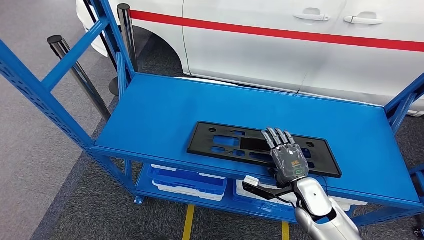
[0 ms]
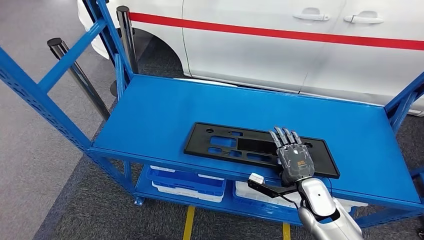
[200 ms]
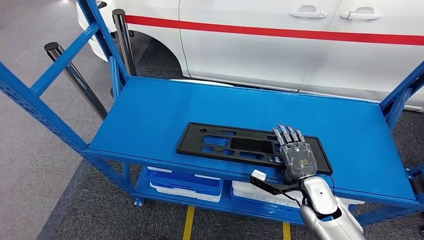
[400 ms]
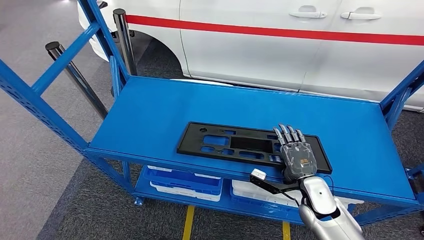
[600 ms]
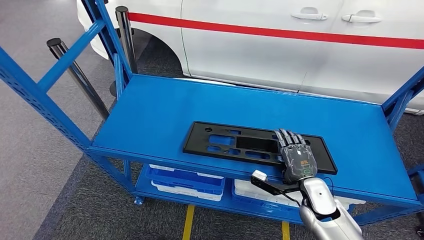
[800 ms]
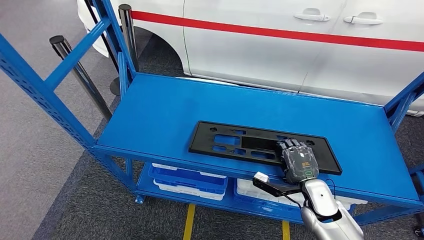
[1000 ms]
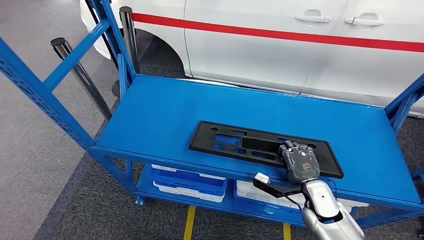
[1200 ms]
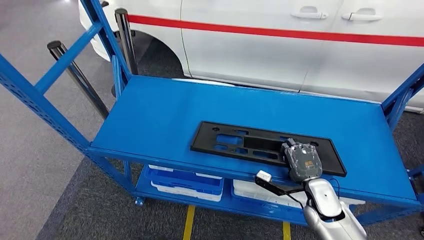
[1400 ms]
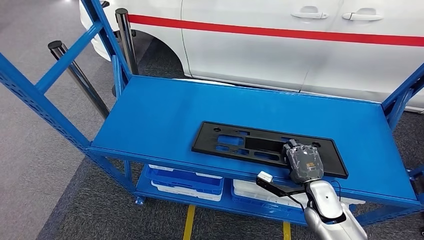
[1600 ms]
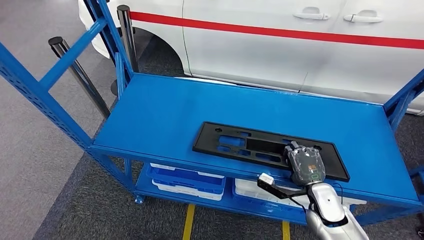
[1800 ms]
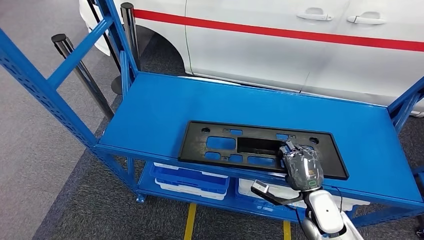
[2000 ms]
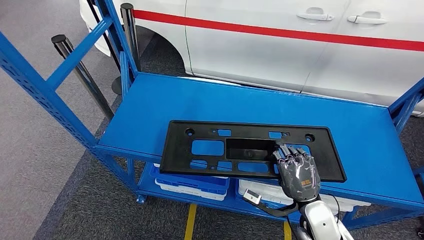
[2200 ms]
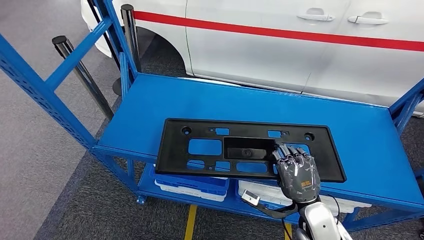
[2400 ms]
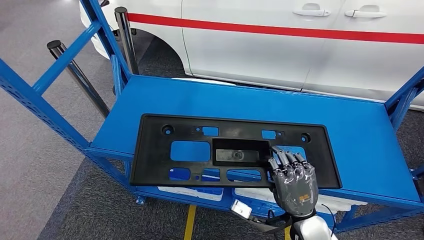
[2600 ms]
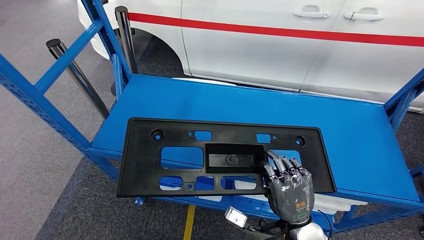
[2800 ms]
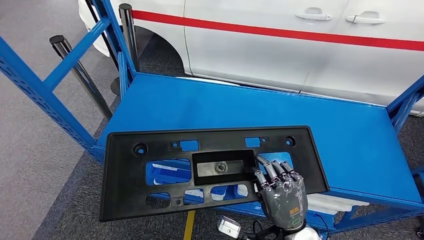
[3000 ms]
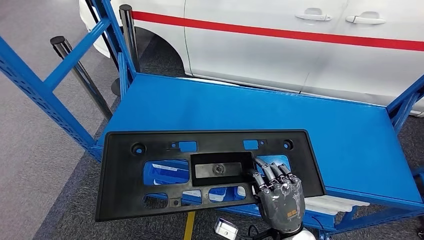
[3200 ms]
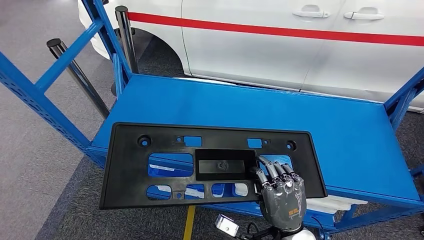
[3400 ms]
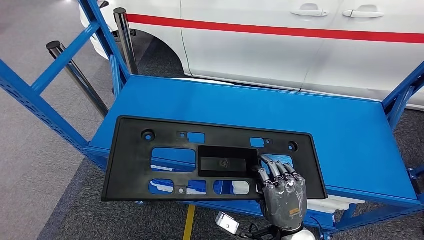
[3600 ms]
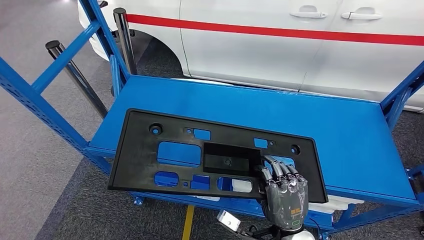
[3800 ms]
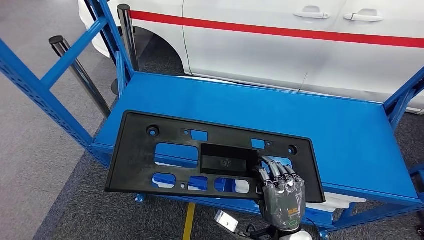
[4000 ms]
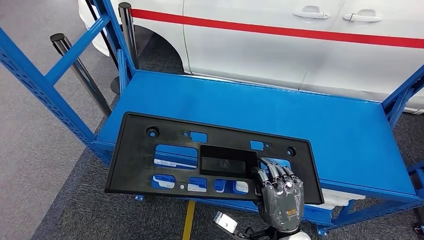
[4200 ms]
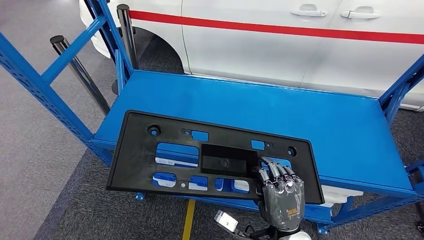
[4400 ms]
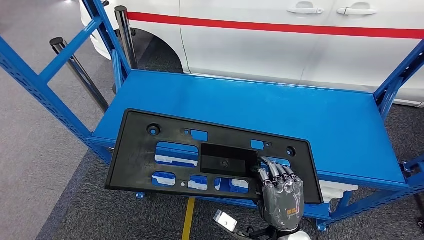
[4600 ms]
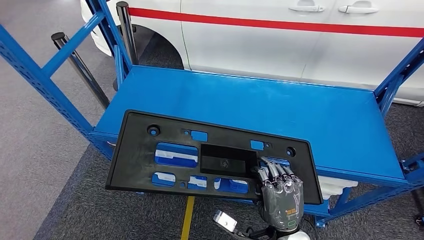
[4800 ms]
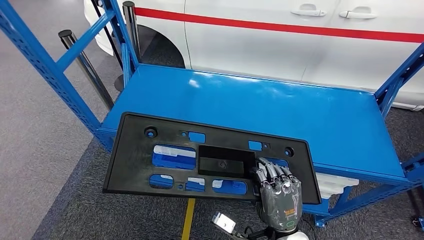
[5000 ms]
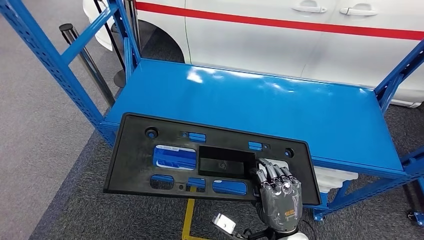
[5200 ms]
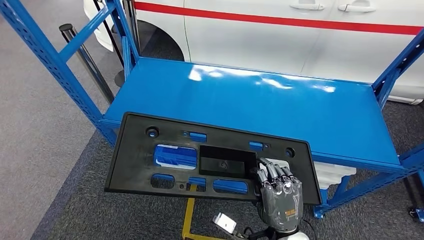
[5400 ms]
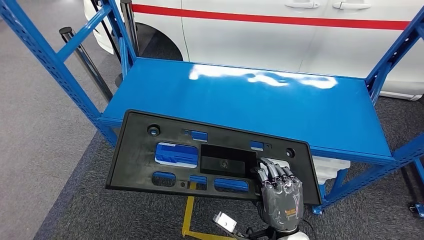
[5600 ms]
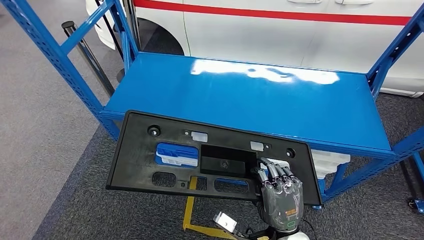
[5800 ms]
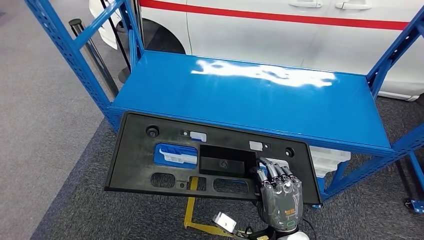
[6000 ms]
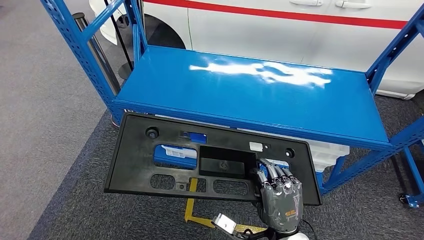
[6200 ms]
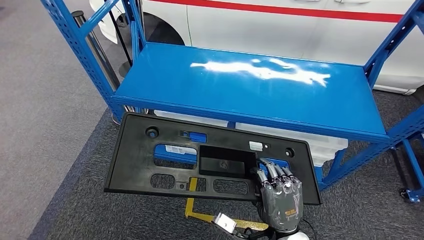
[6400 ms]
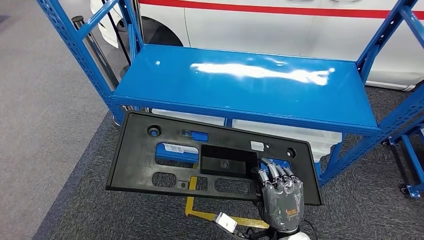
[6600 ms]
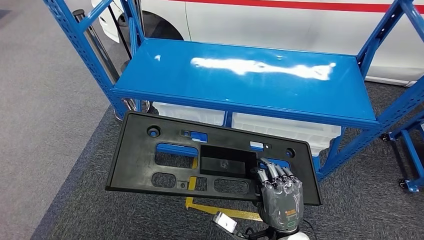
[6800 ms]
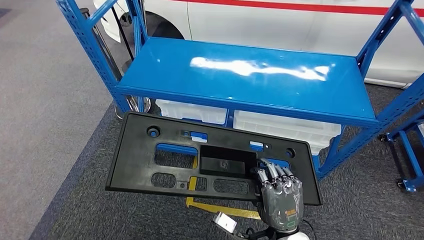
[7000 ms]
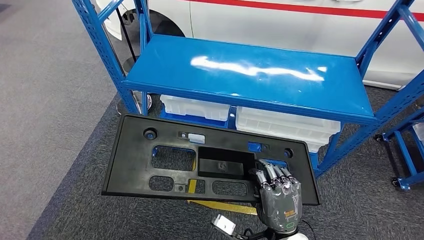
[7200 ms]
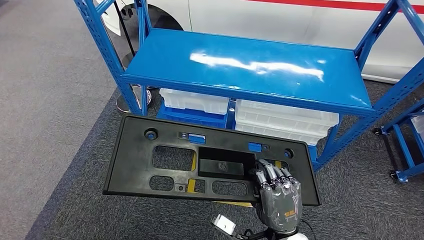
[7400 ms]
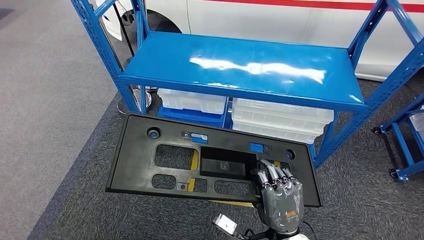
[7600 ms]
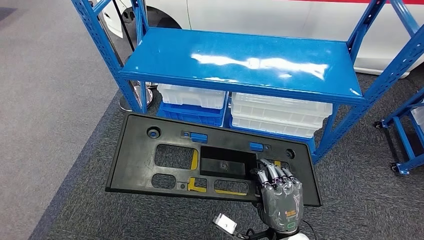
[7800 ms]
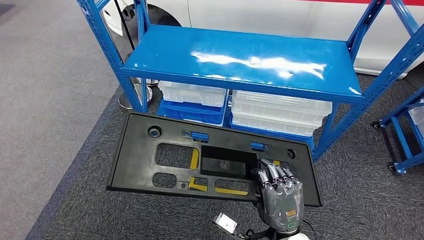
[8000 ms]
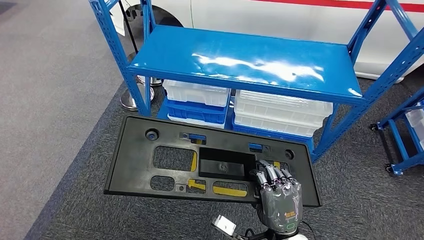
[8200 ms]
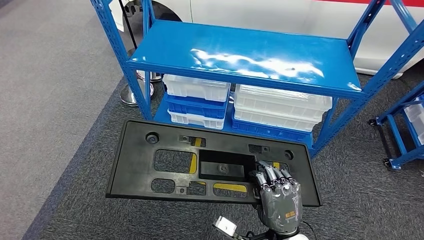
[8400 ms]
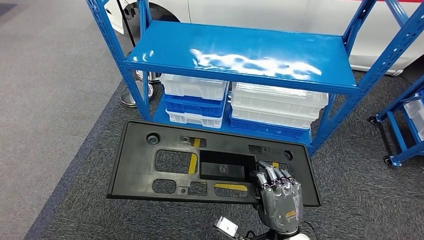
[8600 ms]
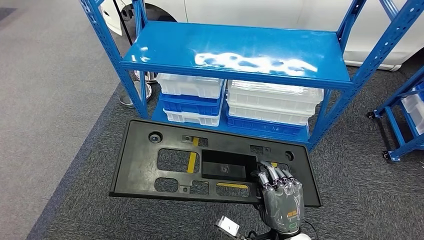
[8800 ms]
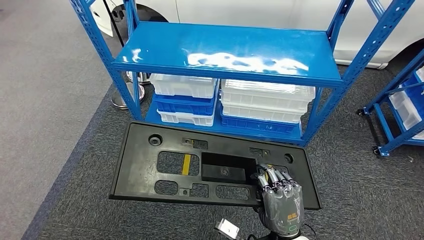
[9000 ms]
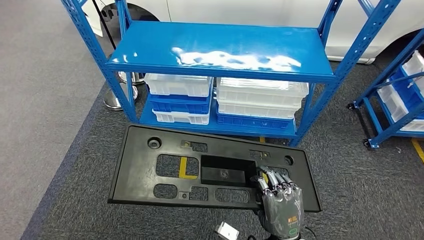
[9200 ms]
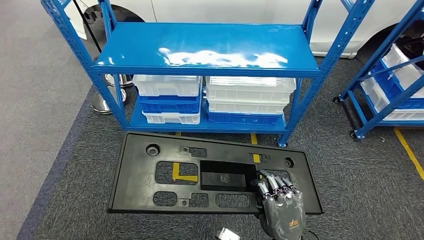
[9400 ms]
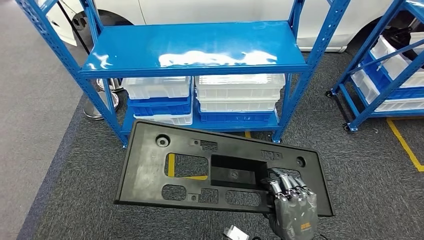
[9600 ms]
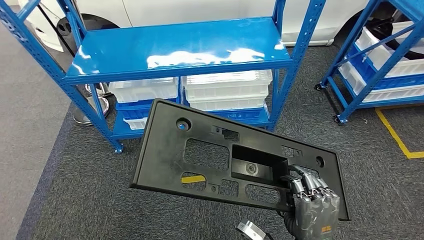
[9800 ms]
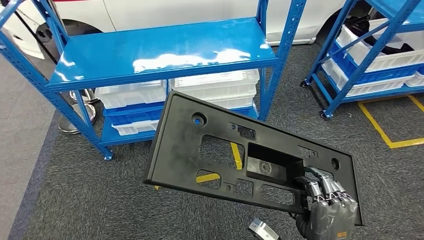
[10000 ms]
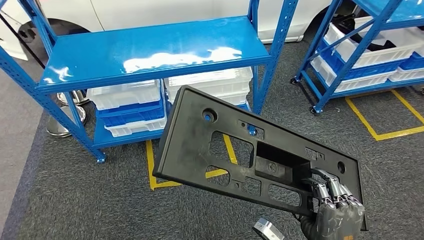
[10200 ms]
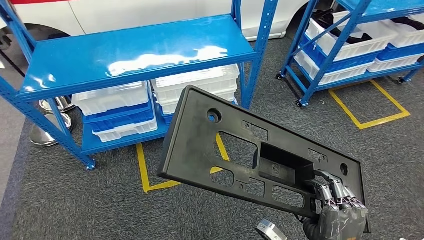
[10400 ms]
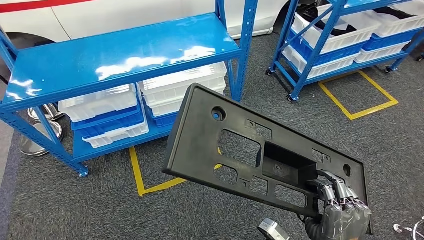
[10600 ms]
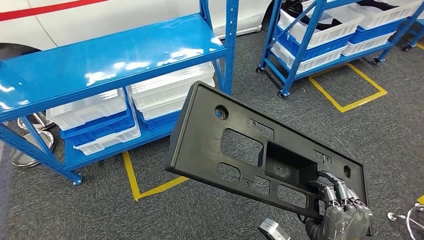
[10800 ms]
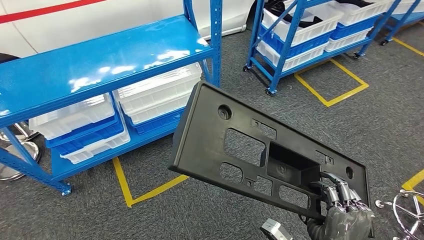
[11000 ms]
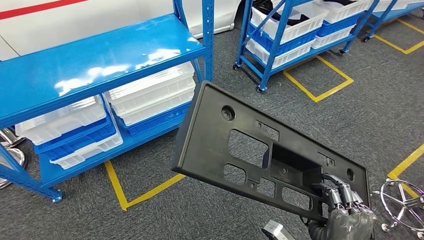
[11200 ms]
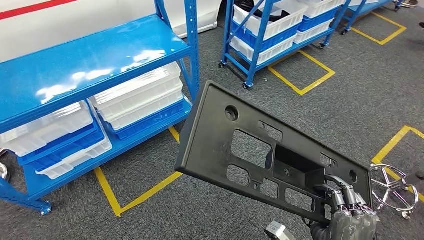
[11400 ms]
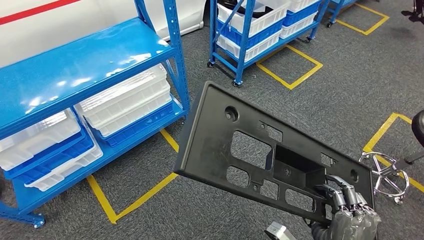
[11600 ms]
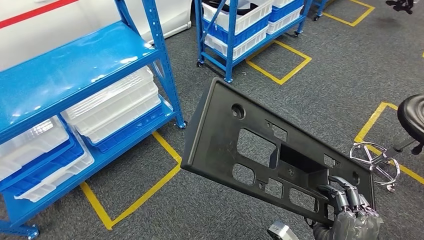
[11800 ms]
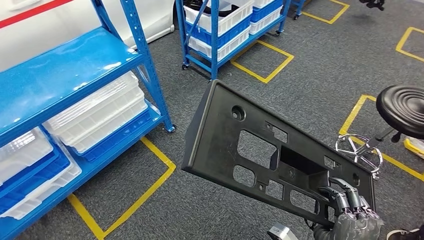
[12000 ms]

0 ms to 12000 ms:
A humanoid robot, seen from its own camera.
Step, 0 ms to 6000 ms: Pick up the large material from the shelf.
0 ms to 1600 ms: The hands stay close to where they were, moving slightly.

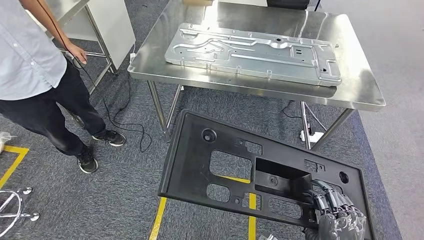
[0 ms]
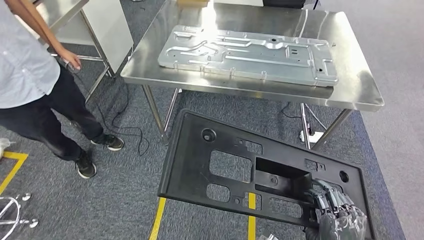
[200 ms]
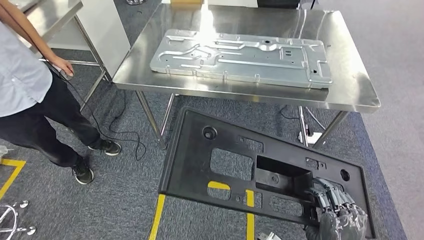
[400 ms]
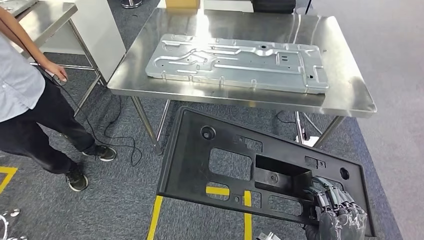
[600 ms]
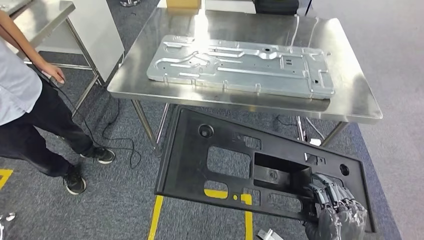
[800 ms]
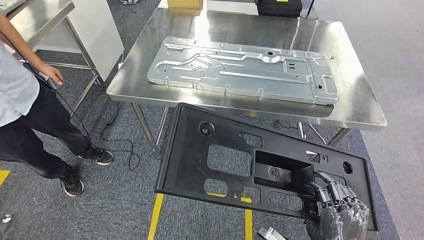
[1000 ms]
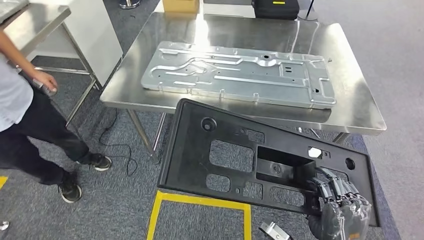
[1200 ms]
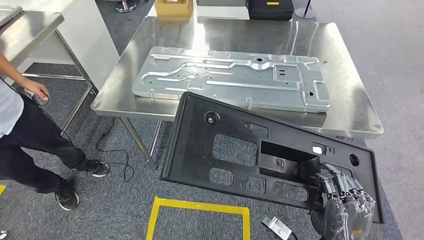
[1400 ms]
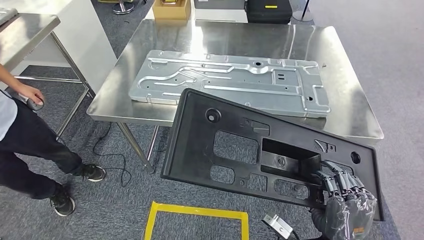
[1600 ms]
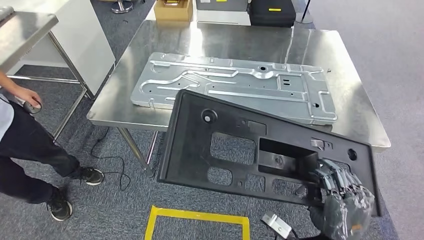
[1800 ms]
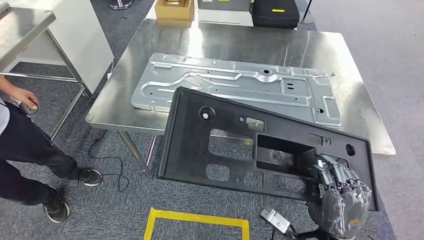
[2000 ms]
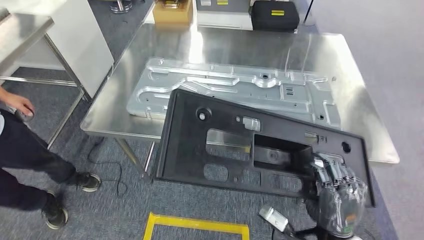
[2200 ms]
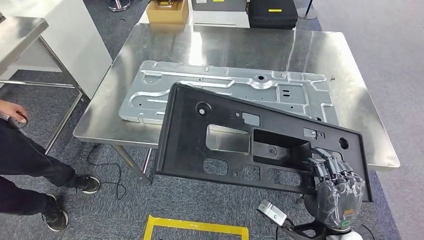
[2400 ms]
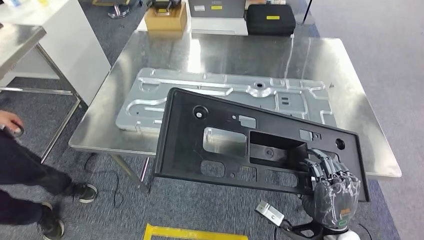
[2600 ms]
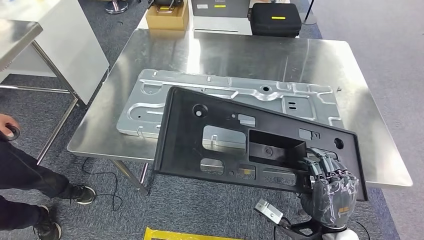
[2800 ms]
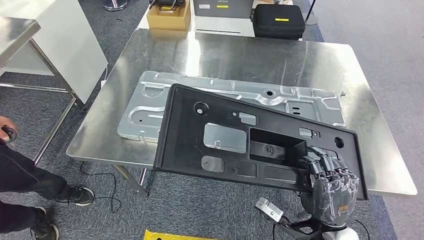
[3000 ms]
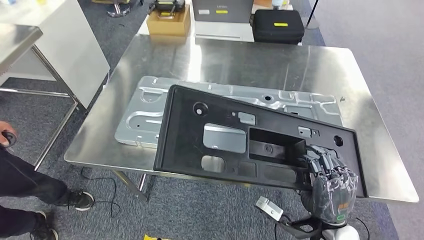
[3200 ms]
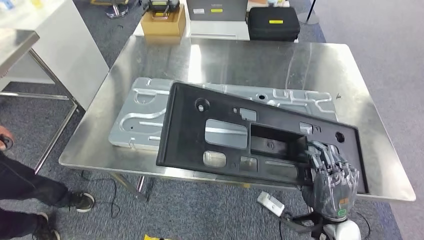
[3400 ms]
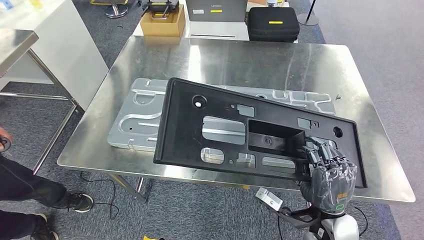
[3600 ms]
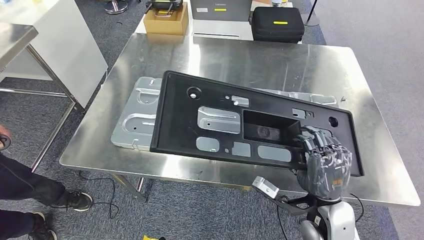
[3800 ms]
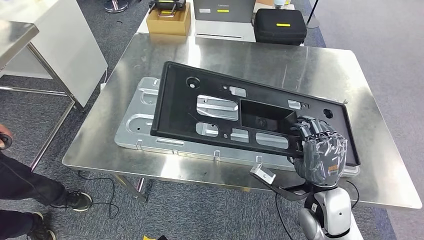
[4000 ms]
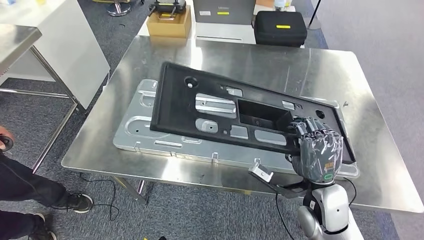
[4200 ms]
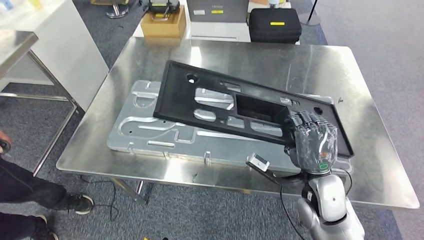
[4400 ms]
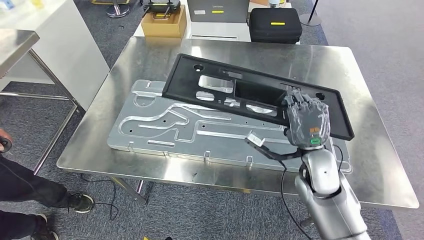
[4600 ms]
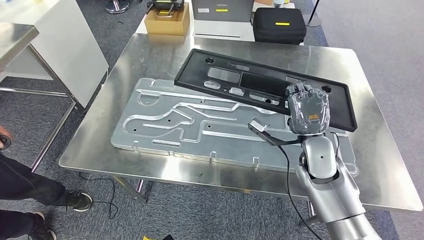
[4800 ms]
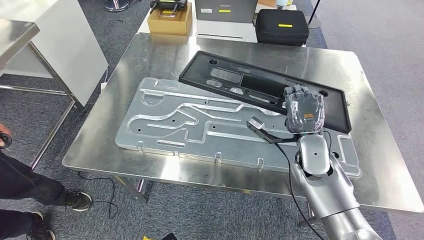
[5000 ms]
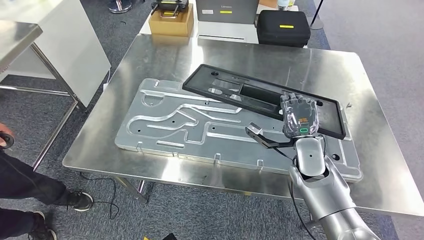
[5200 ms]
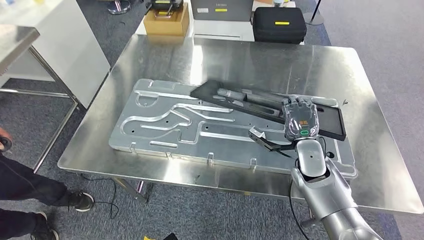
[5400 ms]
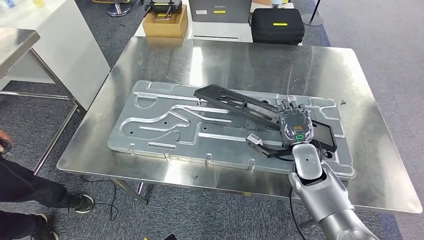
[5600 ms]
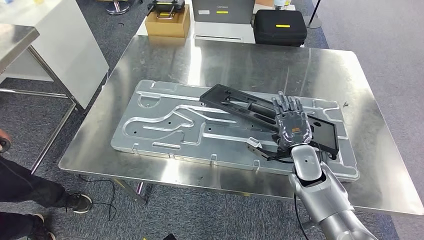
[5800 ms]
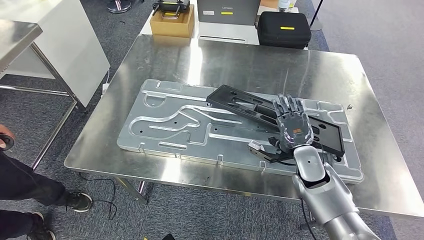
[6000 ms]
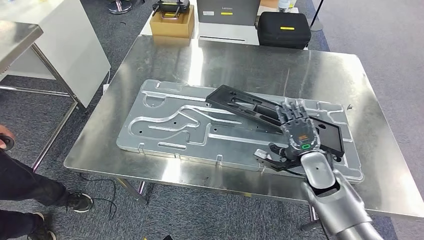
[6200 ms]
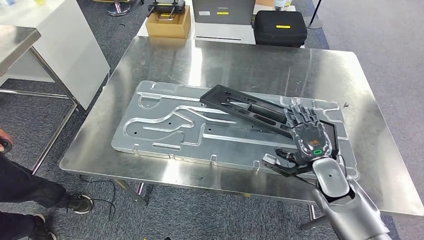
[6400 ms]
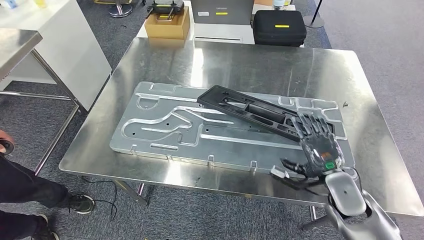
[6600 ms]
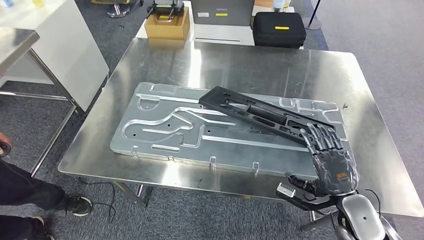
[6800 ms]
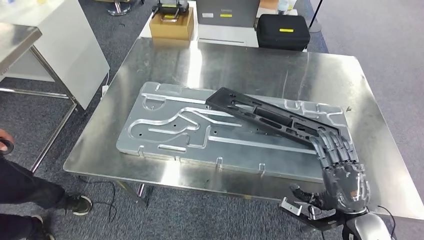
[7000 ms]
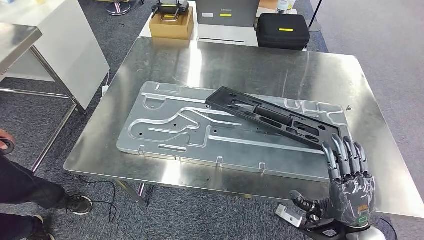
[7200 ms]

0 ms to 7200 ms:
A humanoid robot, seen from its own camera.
5800 ms to 7200 ms: The right hand travels backward by some 20 cm.
